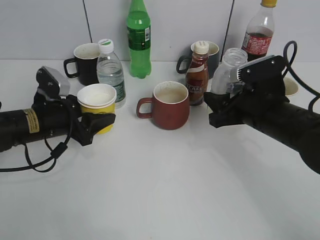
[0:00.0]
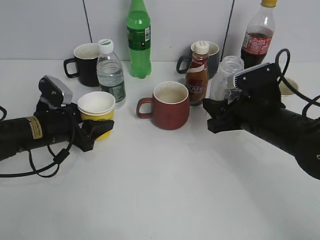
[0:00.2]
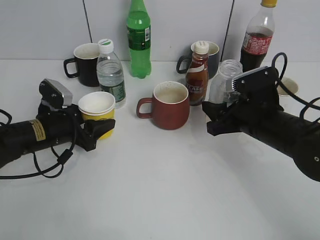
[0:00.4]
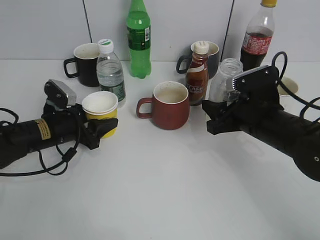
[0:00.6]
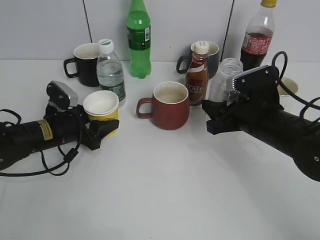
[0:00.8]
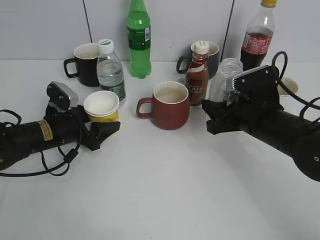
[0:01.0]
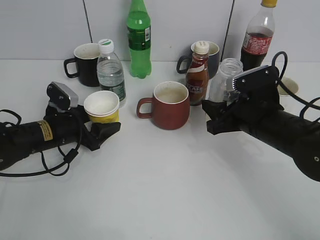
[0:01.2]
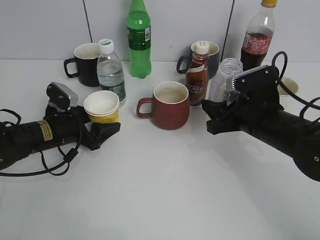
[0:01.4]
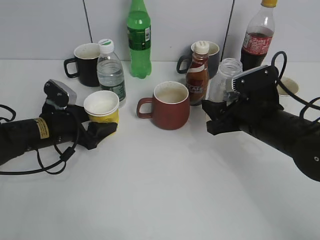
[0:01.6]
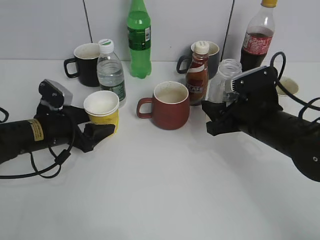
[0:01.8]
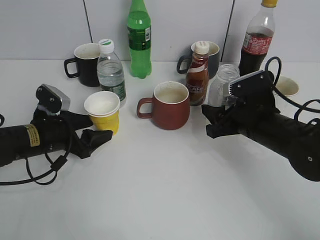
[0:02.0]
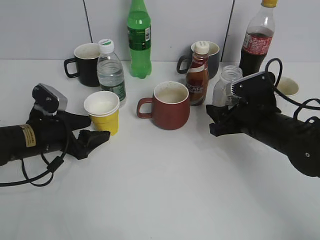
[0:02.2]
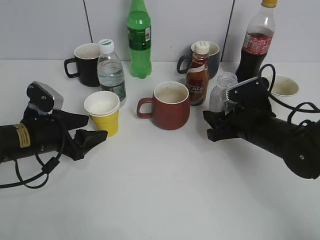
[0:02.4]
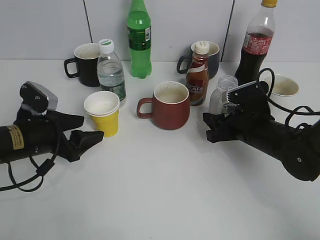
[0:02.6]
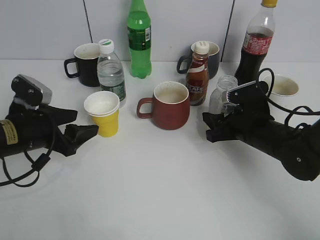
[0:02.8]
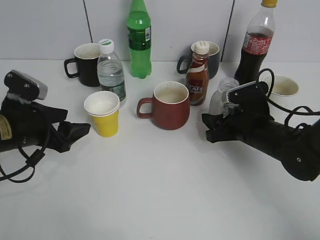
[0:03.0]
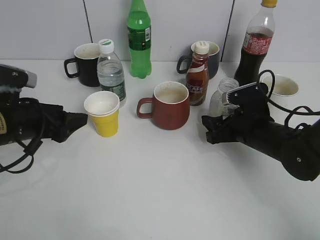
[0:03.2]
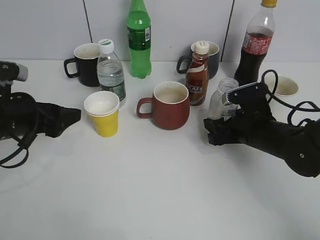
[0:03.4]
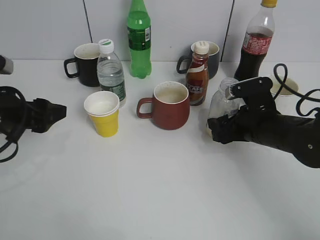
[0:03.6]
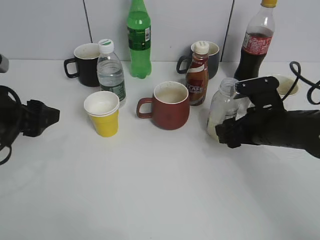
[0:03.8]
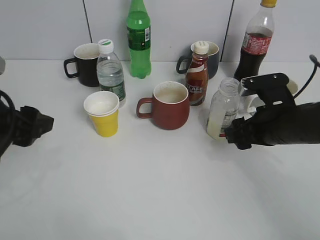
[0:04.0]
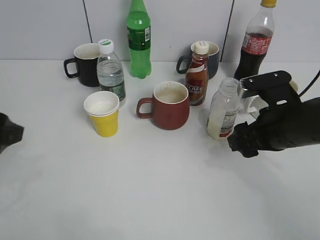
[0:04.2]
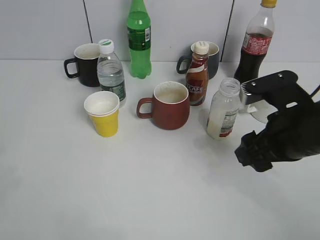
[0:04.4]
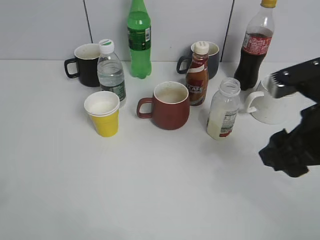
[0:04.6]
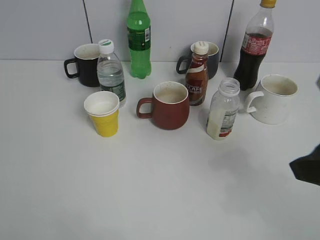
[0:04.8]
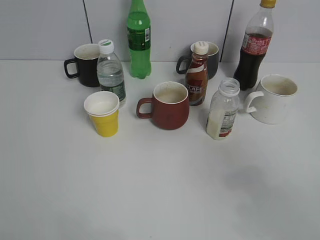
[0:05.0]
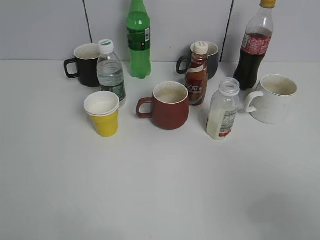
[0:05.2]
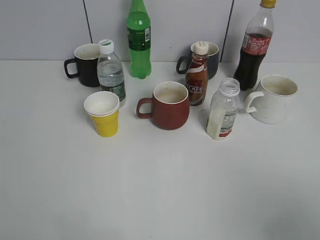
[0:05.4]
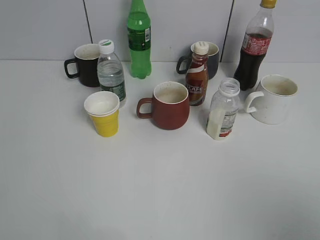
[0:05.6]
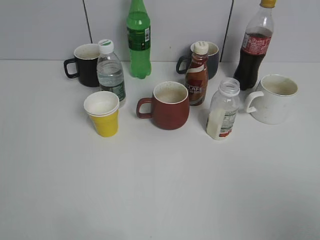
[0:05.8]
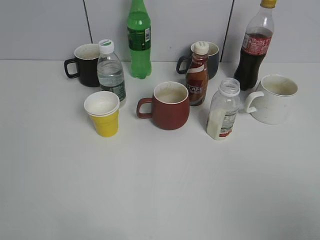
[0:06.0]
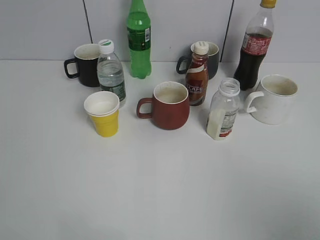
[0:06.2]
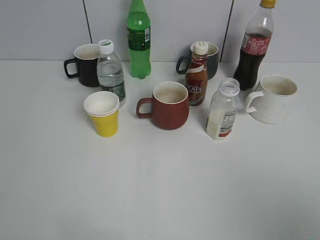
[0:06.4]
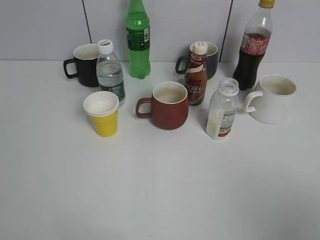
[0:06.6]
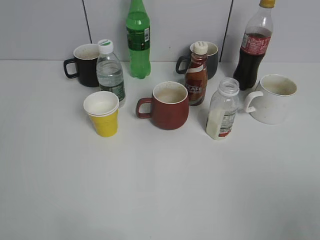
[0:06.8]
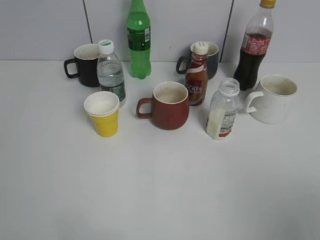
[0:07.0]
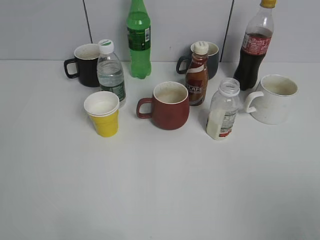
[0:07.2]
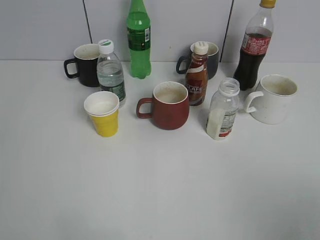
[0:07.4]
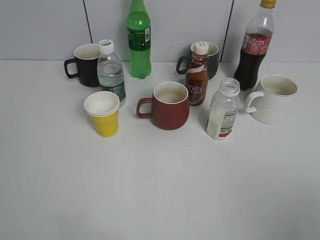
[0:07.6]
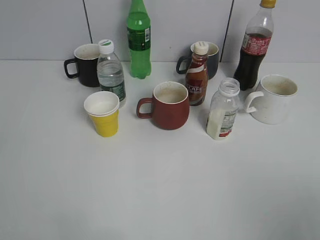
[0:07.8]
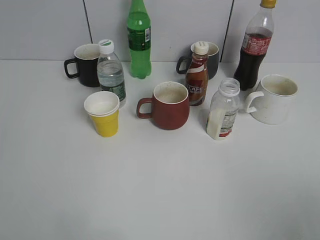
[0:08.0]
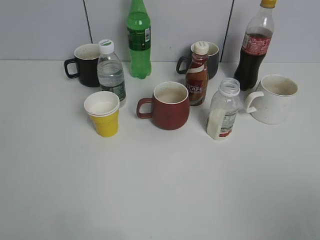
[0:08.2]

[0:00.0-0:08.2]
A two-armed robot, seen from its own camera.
Step, 0:00.0 to 0:04.0: Place the yuexian Milk bottle on the table with right gripper.
0:00.0 to 0:01.6: The left gripper opens.
0:01.6 to 0:03.2: The right gripper ends up approximately 5 cm from where it was, and opens; the left gripper shifts approximately 10 cm upward and backward.
0:03.2 to 0:05.0: The right gripper travels upward and backward by roughly 30 cm. The left gripper is displaced backward and upward by roughly 30 cm.
0:05.0 to 0:06.6: The right gripper shifts some 10 cm backward and to the right.
